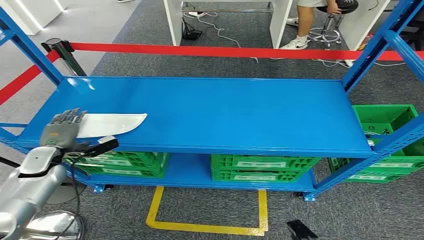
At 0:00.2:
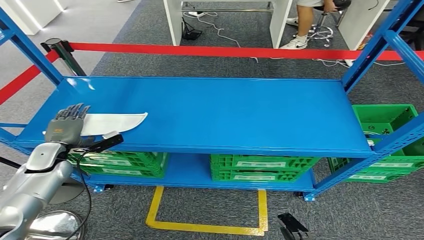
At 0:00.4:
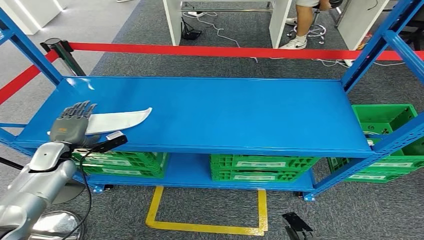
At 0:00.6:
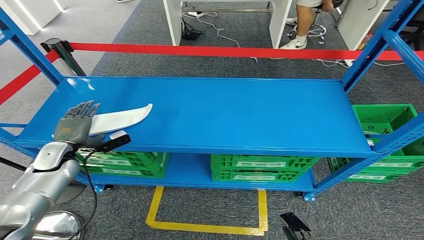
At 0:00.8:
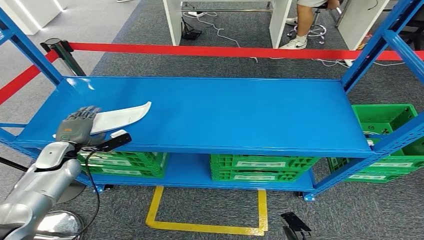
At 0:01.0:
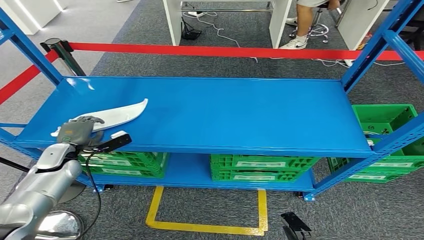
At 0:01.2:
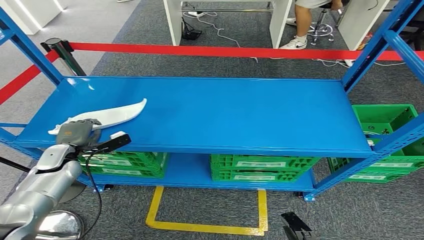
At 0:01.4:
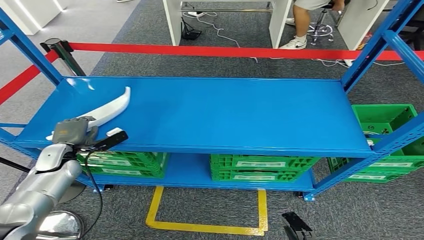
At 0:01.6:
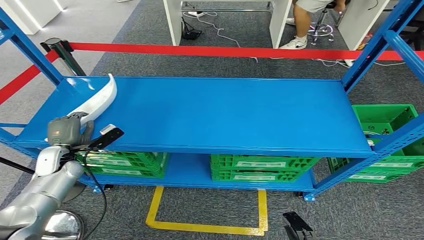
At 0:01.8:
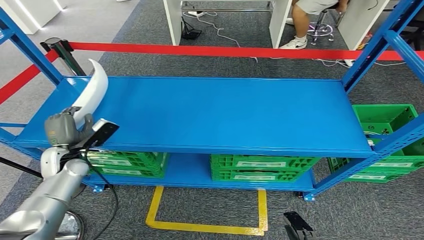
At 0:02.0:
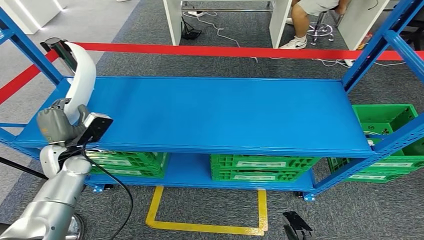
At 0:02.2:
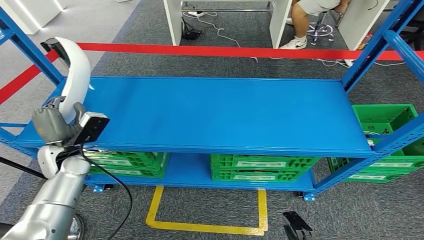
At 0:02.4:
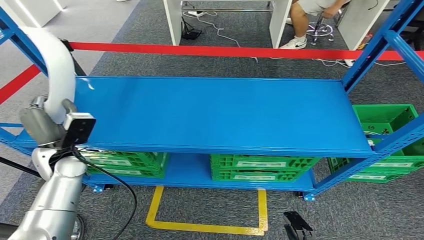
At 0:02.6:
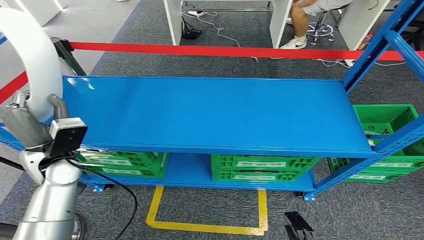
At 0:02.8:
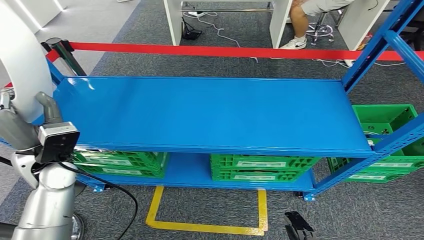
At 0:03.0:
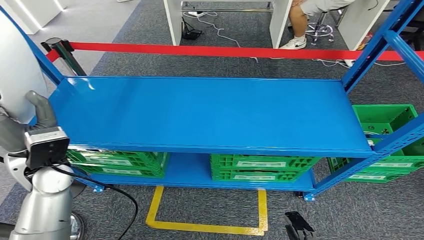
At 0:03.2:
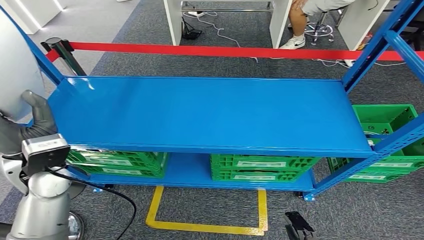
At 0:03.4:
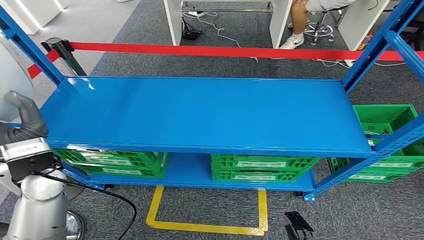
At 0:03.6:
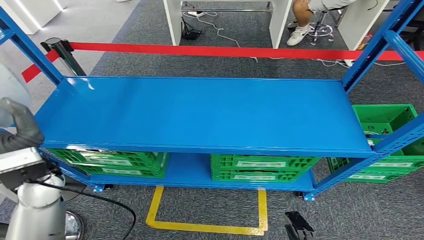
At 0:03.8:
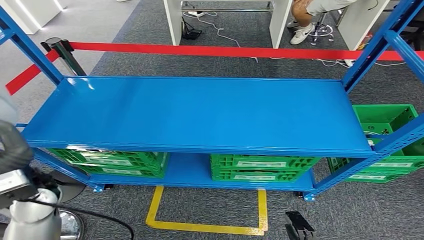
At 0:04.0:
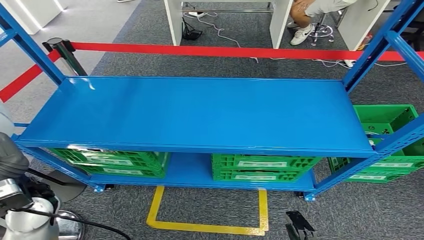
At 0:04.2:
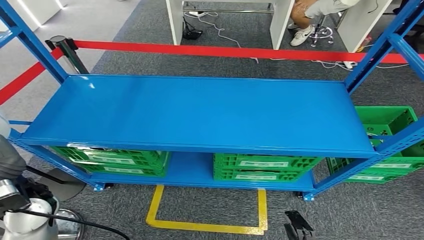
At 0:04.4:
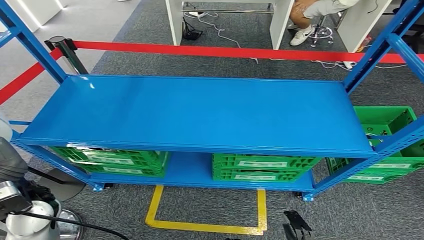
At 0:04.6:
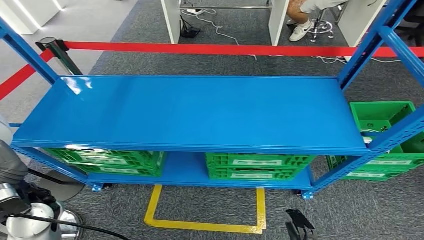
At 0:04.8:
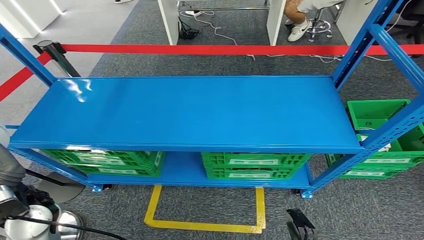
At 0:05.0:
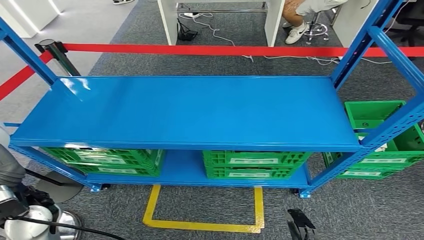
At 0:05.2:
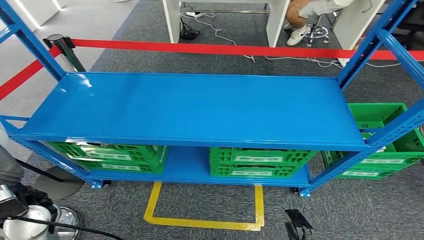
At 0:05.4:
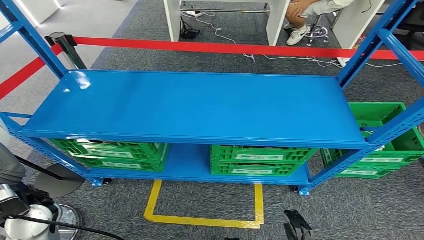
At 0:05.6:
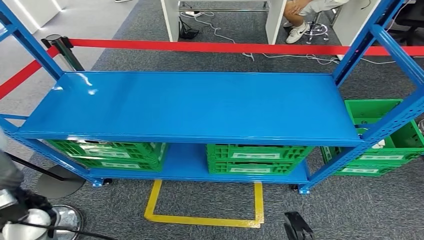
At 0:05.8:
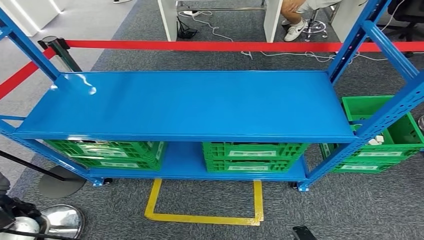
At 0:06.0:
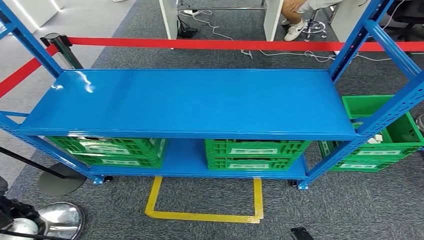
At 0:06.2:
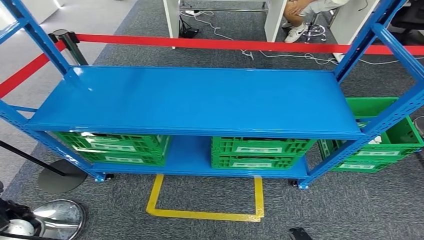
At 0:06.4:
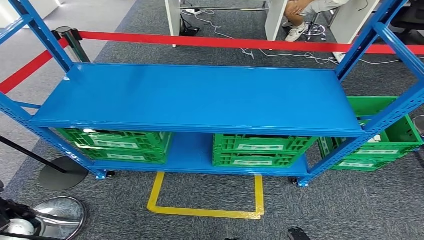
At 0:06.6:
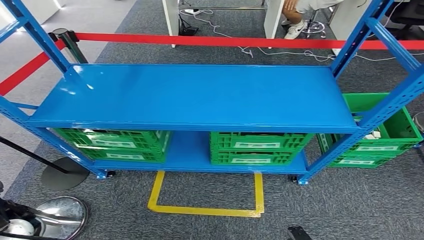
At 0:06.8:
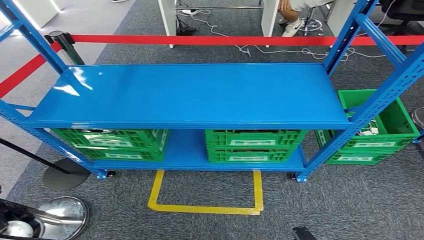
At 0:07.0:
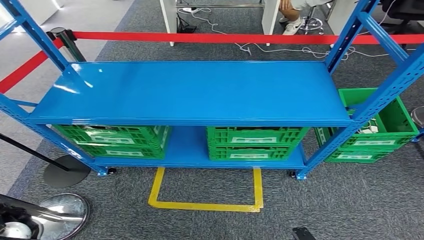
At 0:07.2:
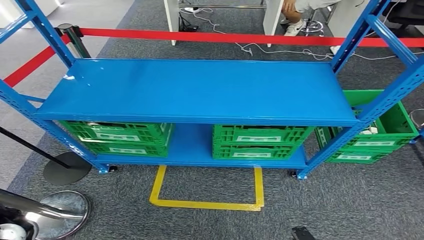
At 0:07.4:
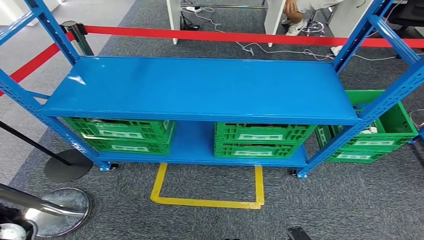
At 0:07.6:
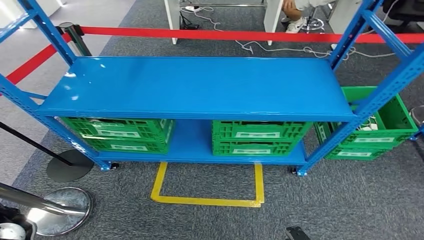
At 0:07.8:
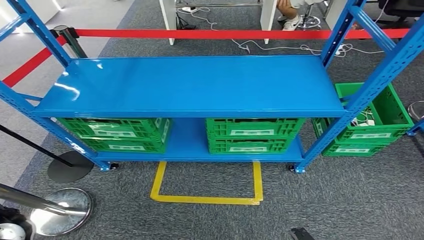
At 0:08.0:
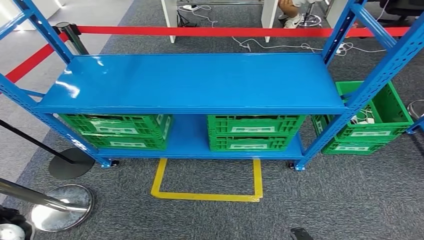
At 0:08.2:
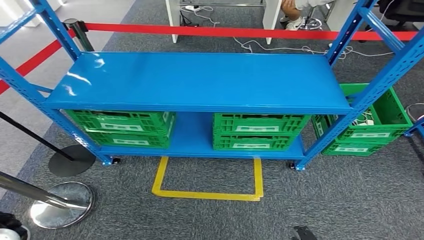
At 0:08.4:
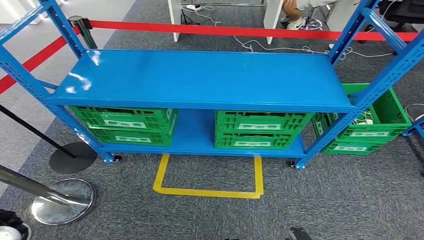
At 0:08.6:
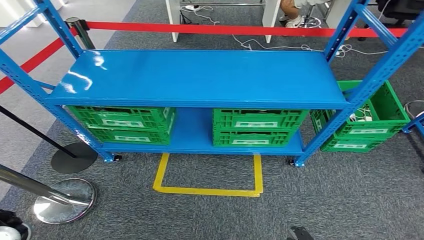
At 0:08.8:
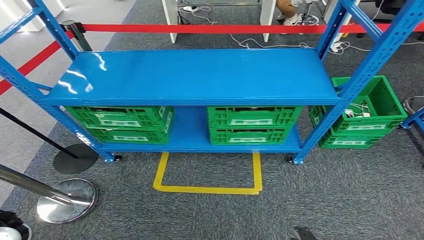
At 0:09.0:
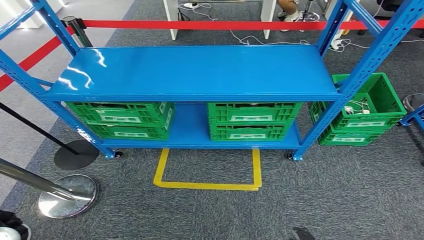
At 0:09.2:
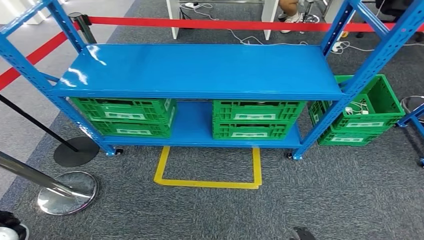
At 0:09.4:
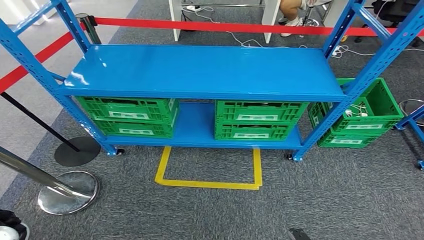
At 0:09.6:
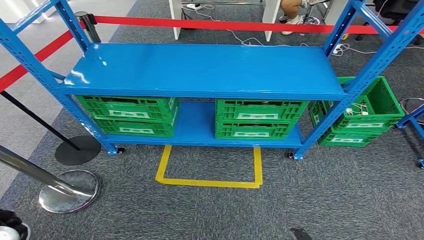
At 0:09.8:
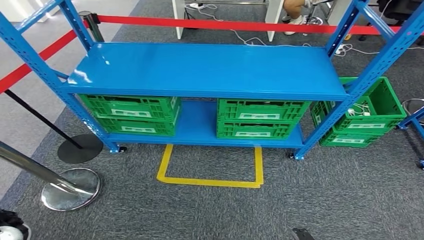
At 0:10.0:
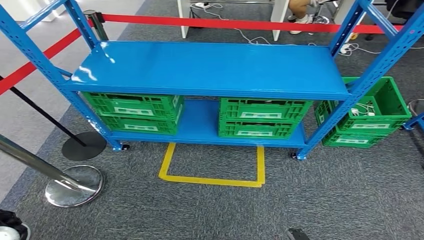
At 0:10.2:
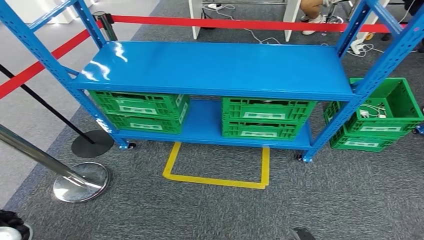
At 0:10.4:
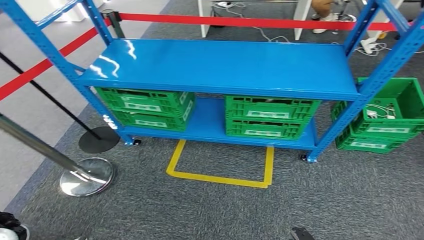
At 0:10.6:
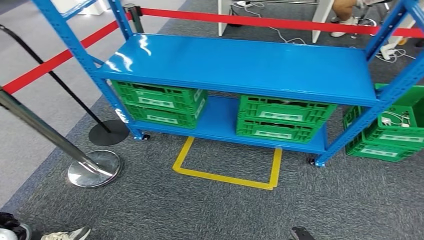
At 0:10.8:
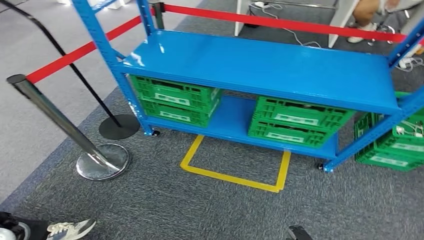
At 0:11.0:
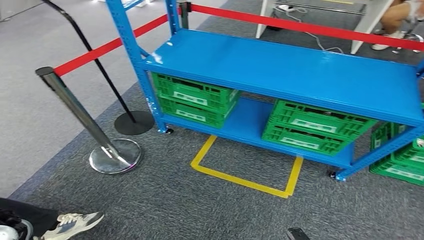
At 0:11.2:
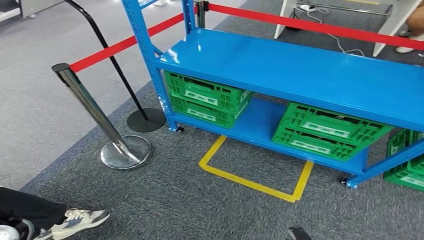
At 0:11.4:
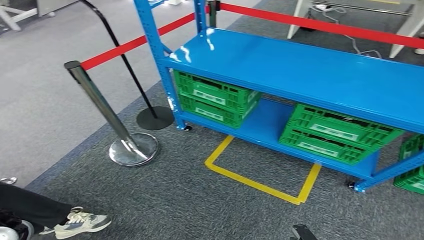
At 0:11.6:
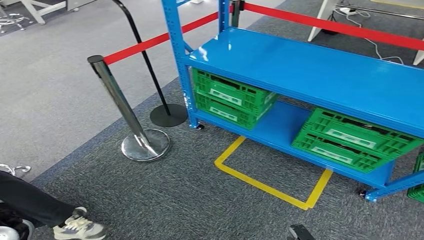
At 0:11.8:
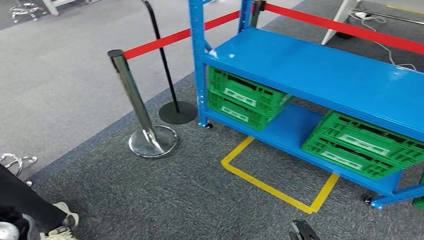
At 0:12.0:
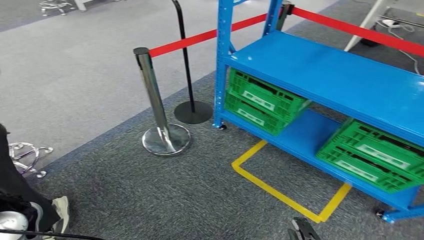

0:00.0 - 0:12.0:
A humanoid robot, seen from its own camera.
Step, 0:00.0 - 0:05.4: Pick up the small parts from the shelf.
0:01.6 - 0:03.0: The left hand goes roughly 20 cm upward and to the right.
0:03.0 - 0:04.4: The left hand shifts about 10 cm backward.

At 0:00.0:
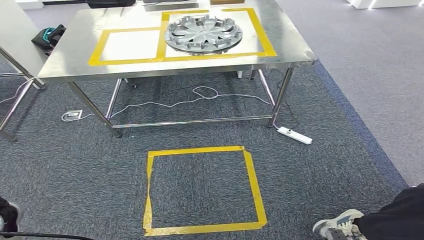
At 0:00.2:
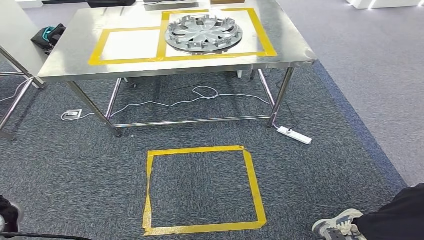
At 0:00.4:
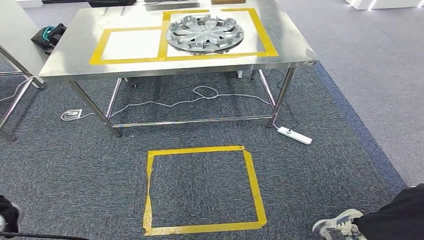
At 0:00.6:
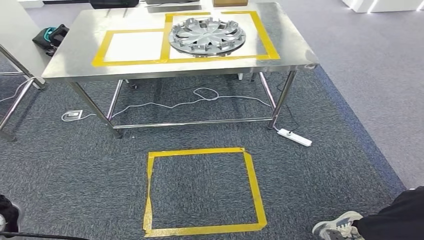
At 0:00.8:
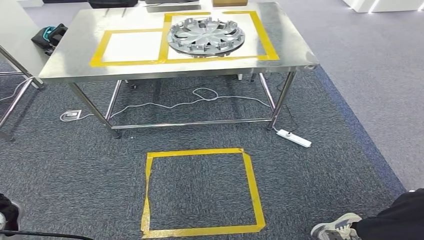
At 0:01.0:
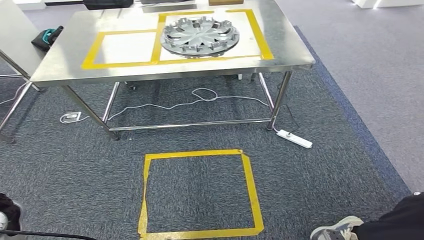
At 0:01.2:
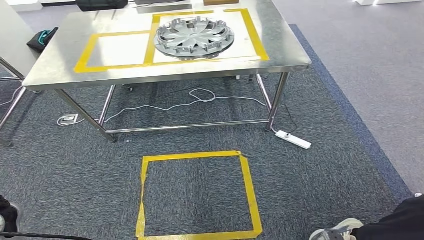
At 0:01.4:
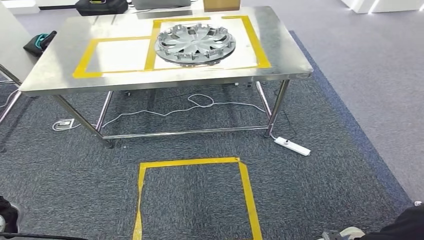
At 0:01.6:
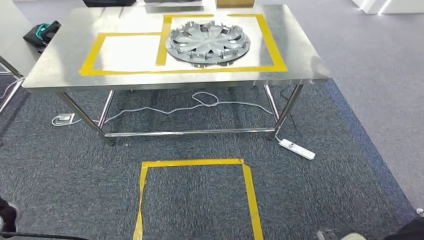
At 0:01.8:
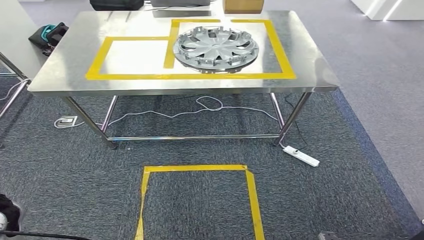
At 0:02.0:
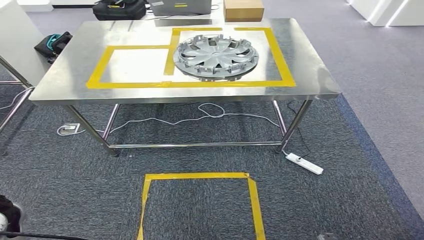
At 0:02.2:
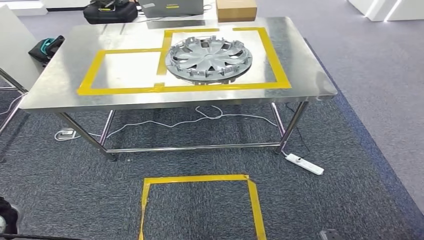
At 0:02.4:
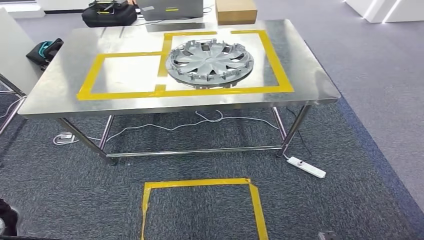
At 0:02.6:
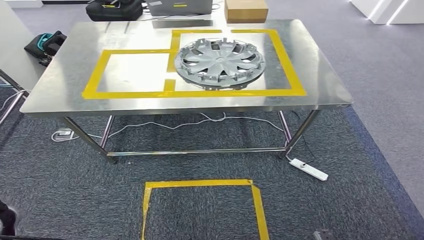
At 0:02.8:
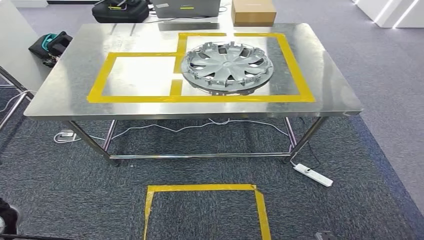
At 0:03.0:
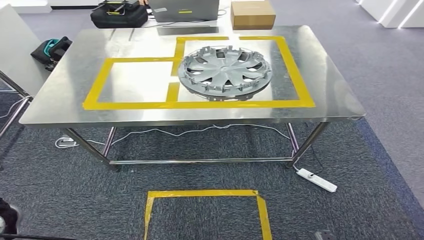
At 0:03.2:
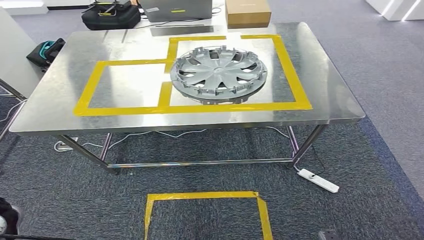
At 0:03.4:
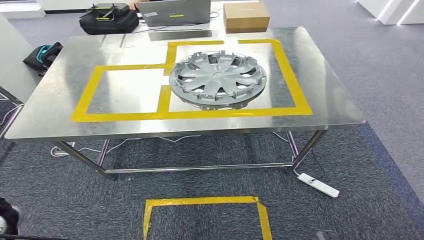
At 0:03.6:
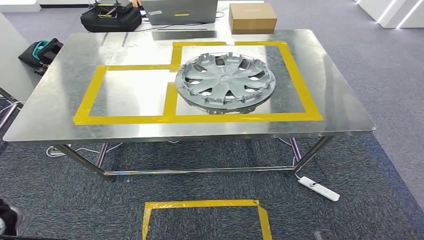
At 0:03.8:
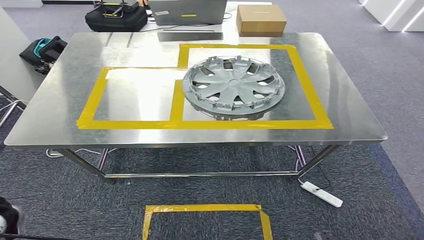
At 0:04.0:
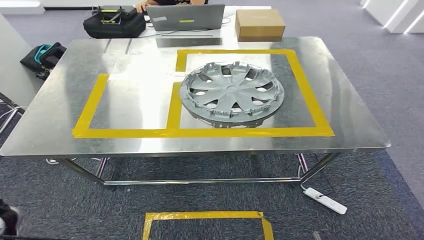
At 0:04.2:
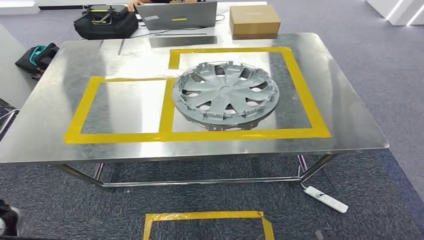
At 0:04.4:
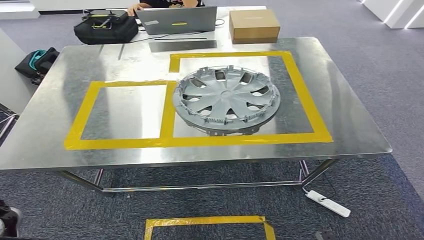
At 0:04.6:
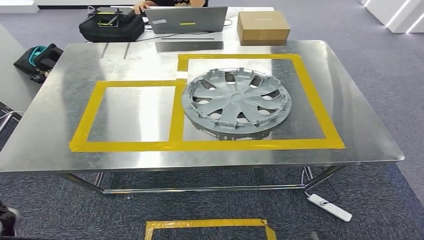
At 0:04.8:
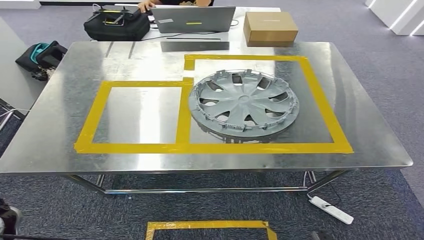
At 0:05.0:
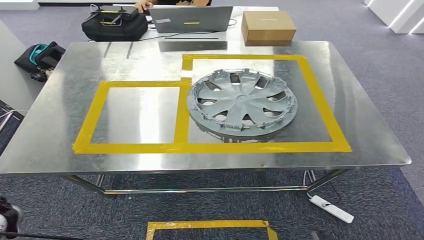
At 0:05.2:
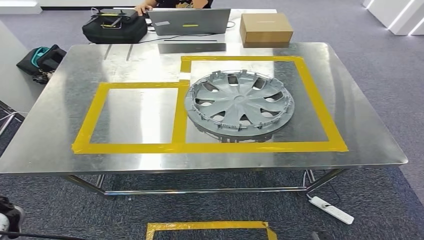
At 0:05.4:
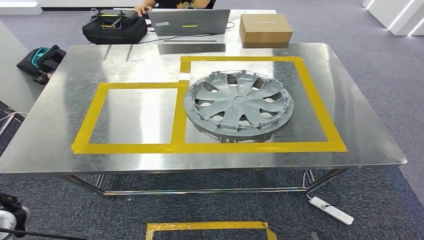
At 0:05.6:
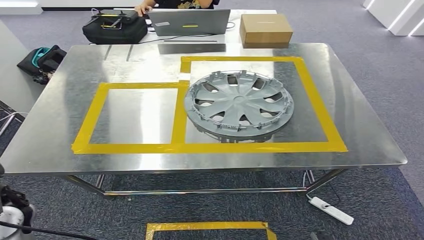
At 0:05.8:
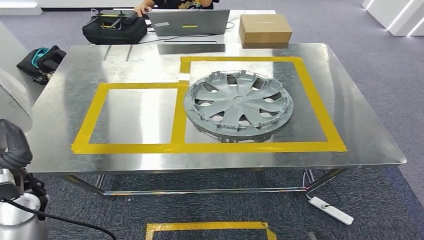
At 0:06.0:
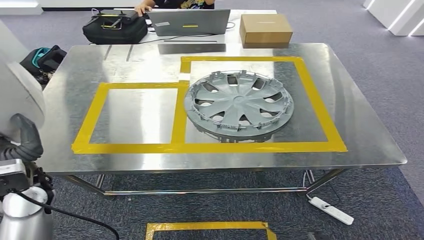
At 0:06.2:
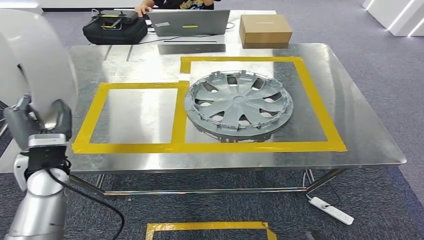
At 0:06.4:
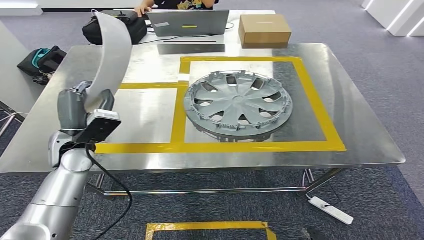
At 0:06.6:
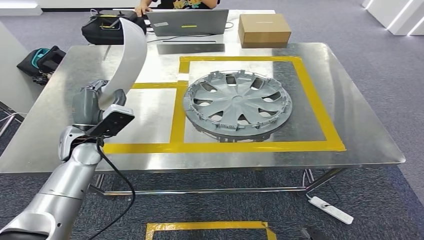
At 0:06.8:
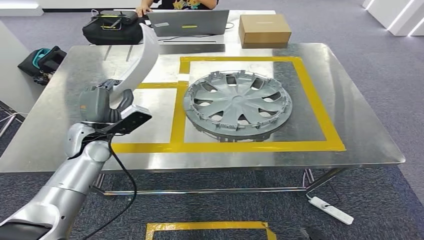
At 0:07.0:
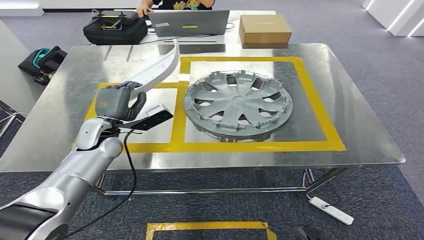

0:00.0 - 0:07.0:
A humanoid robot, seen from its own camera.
Step, 0:00.0 - 0:03.4: Move the small parts to the workbench.
0:05.6 - 0:07.0: The left hand travels forward and to the right by approximately 20 cm.
